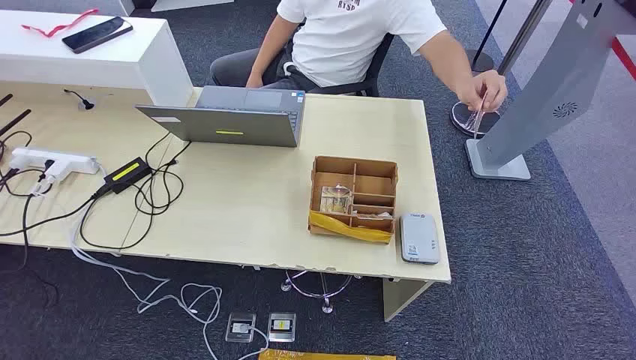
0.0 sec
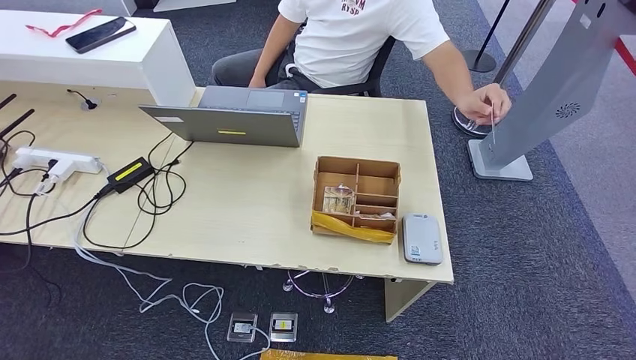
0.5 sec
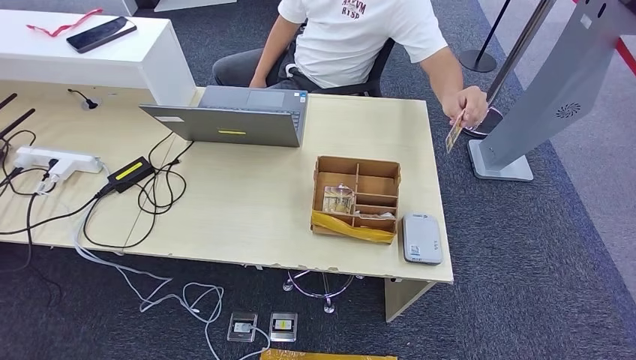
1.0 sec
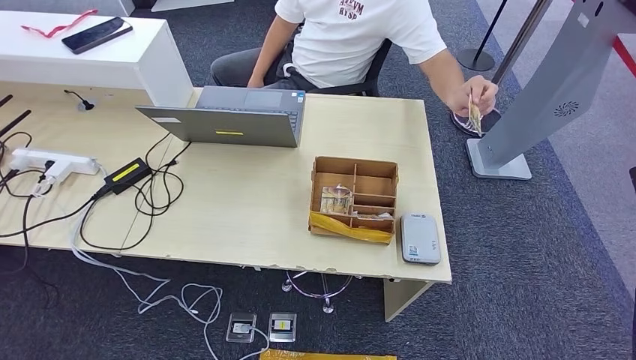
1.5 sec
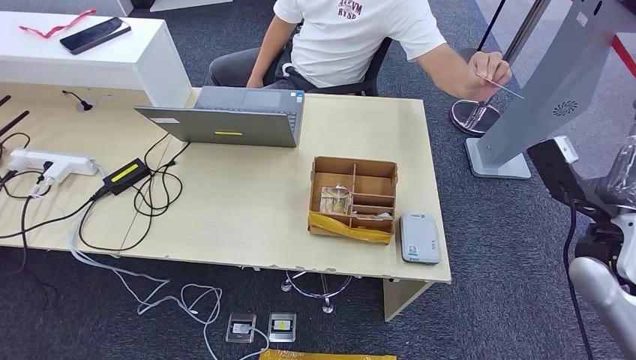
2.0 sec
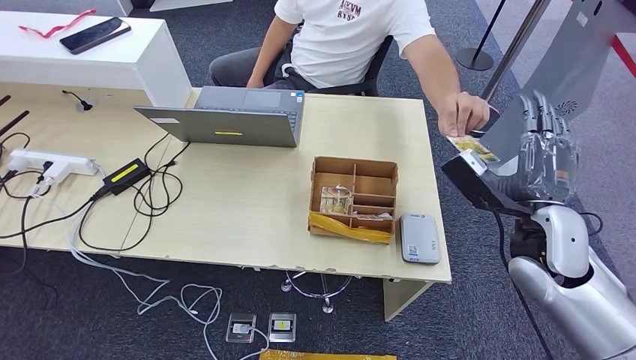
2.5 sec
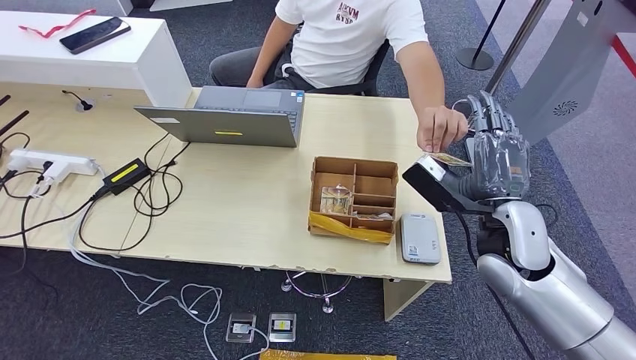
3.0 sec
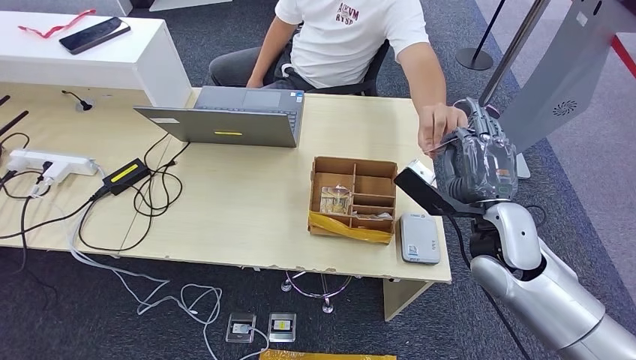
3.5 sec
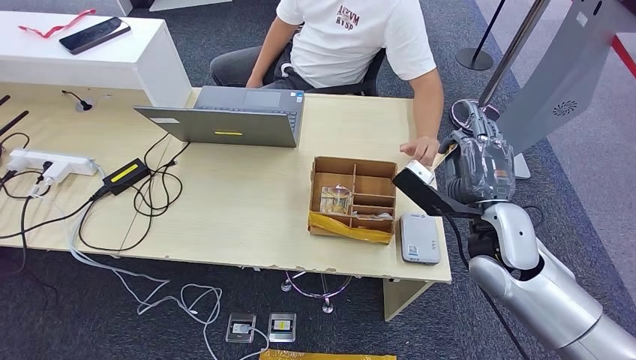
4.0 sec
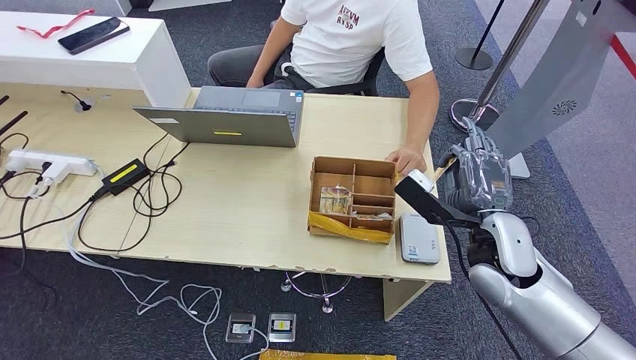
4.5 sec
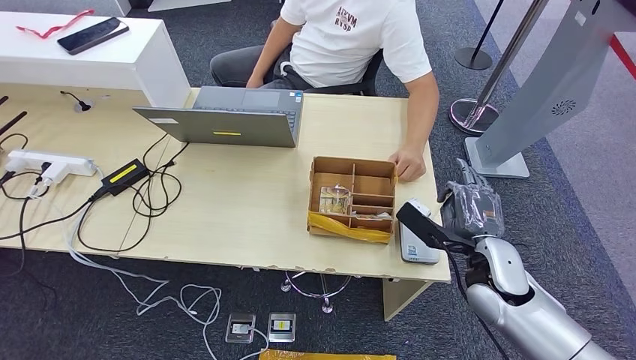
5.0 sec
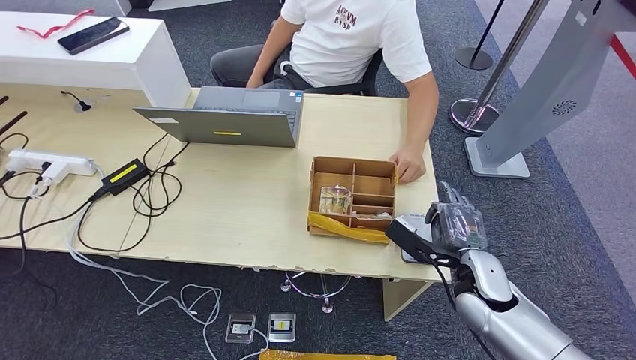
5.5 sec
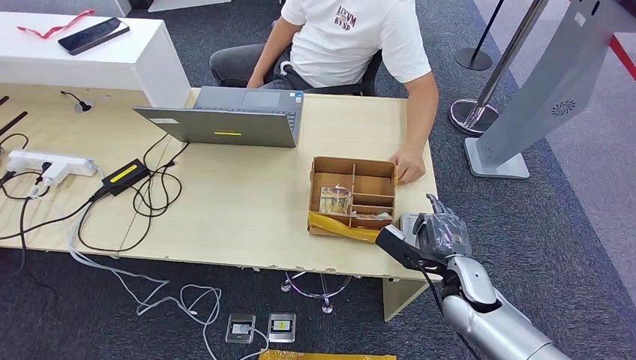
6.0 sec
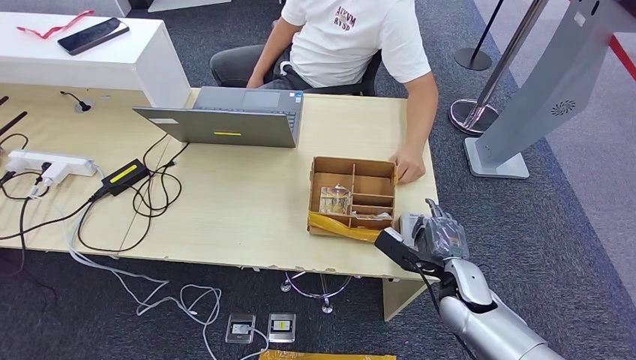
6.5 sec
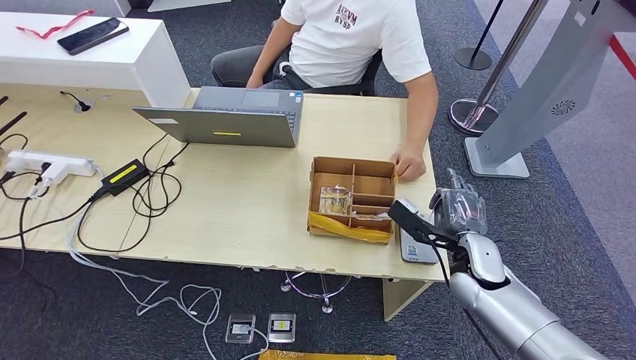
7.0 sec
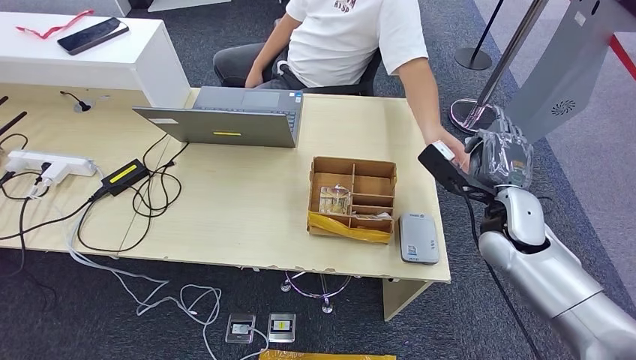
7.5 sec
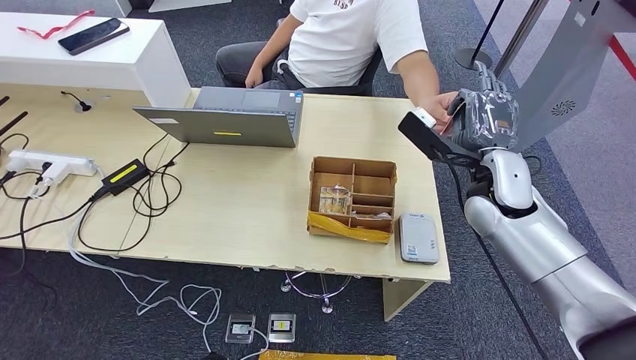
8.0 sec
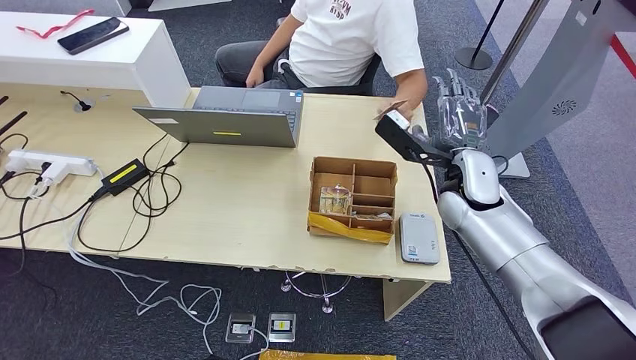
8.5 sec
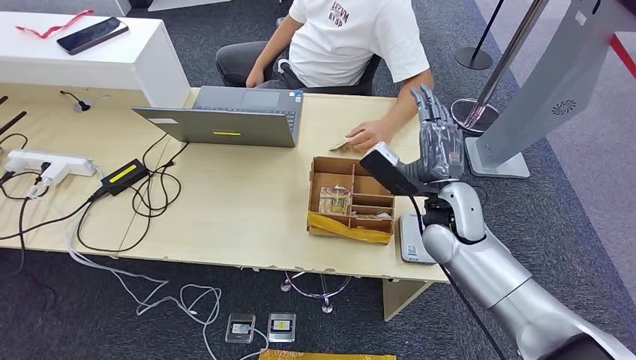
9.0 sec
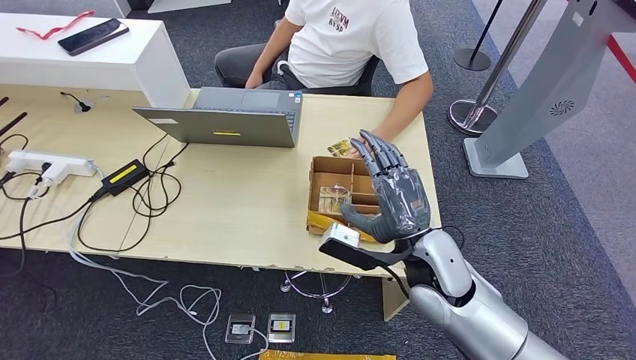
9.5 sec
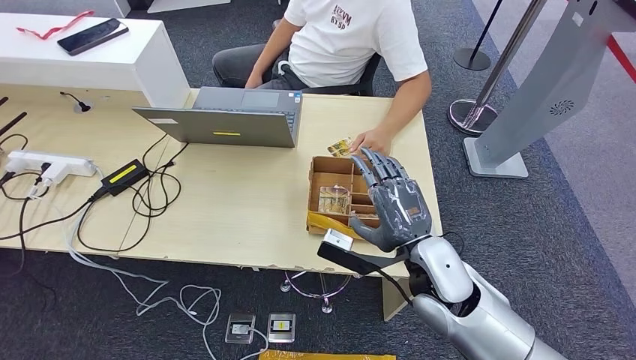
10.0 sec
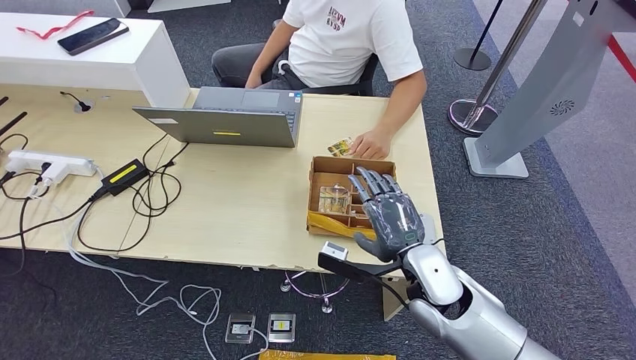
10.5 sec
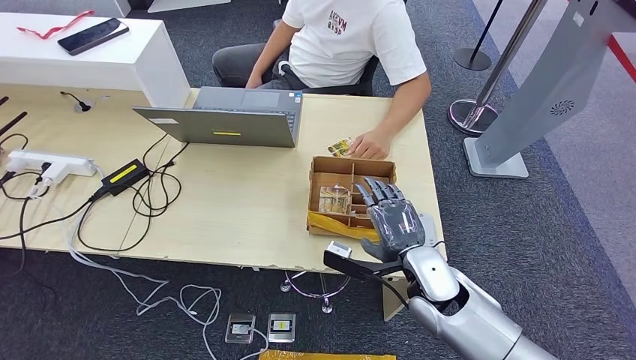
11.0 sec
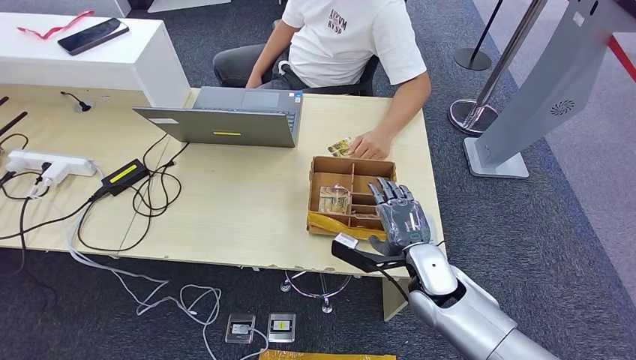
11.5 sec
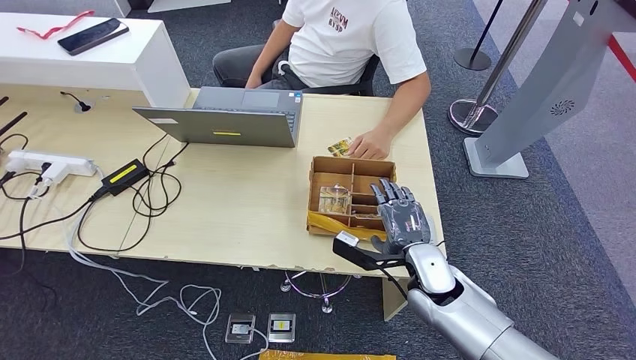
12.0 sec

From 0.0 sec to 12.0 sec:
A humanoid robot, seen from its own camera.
Step, from 0.0 sec to 4.0 sec: Take the ID card from the person's hand.
Step, from 4.5 sec to 6.0 sec: Place the ID card on the card reader.
Step, from 6.5 sec to 8.5 sec: Hand the ID card to the person.
From 2.0 sec to 4.0 sec: The right hand moves to the left, about 15 cm.
From 4.0 sec to 6.0 sec: The right hand moves downward, approximately 15 cm.
From 6.0 sec to 8.0 sec: The right hand heads upward and forward, covering some 20 cm.
From 10.0 sec to 12.0 sec: The right hand is displaced downward by some 10 cm.

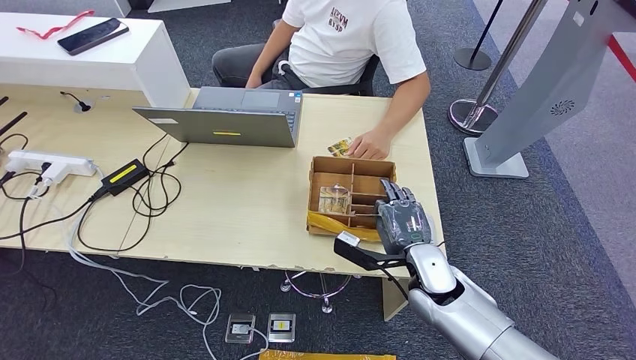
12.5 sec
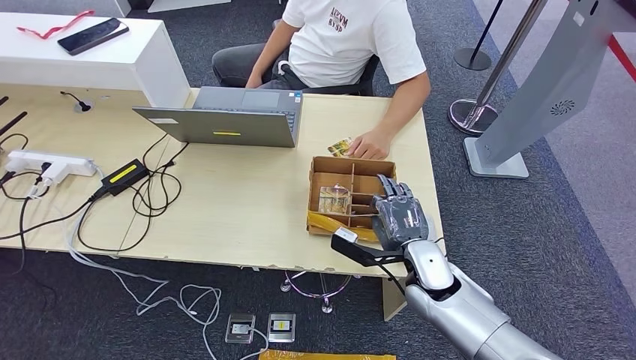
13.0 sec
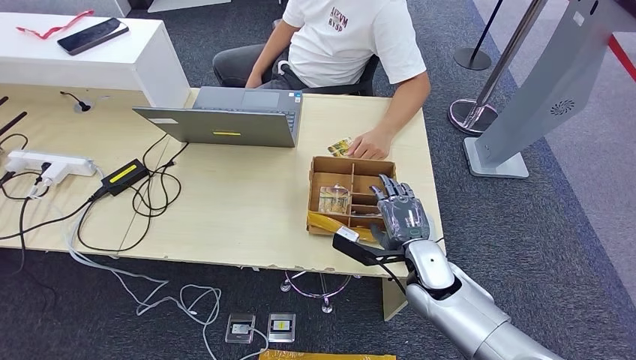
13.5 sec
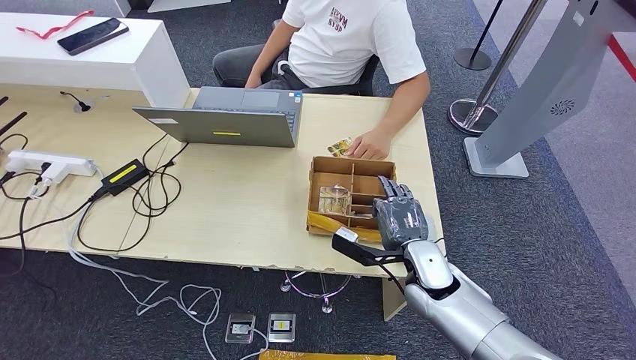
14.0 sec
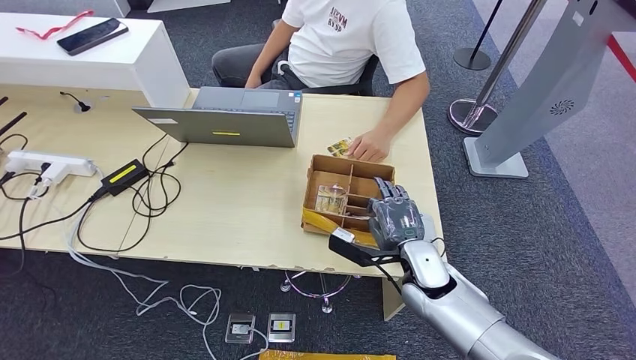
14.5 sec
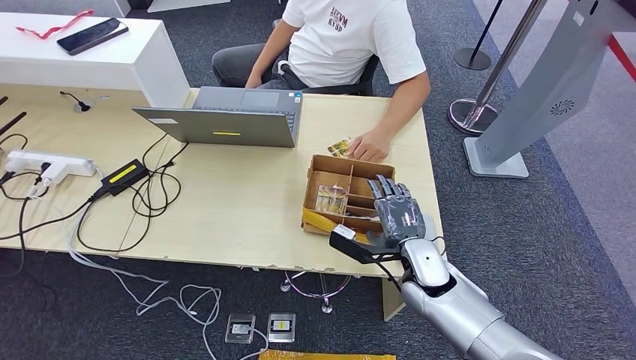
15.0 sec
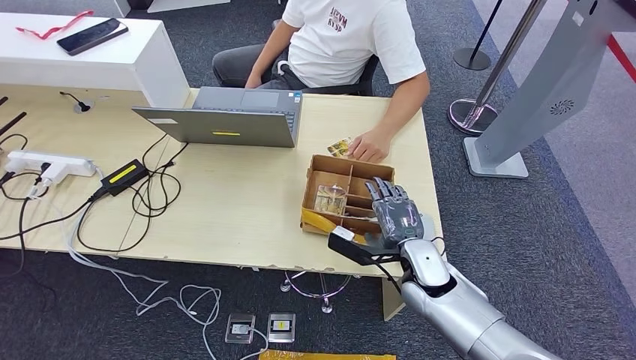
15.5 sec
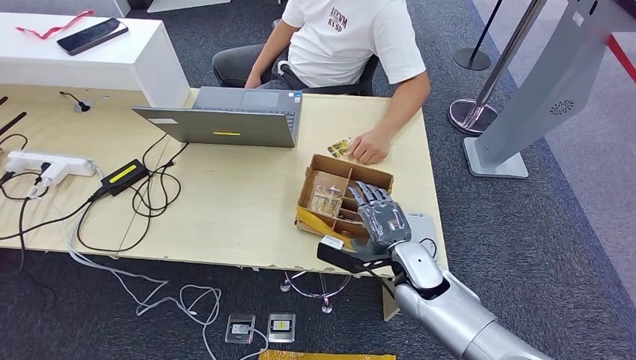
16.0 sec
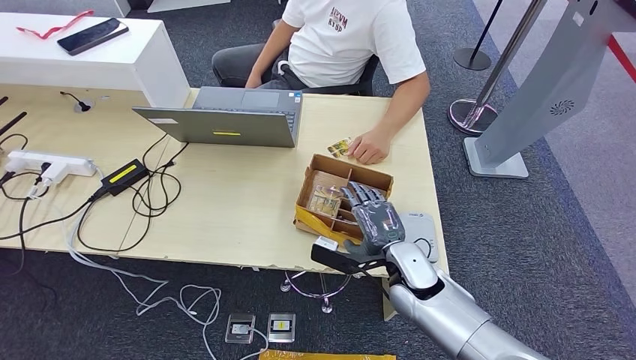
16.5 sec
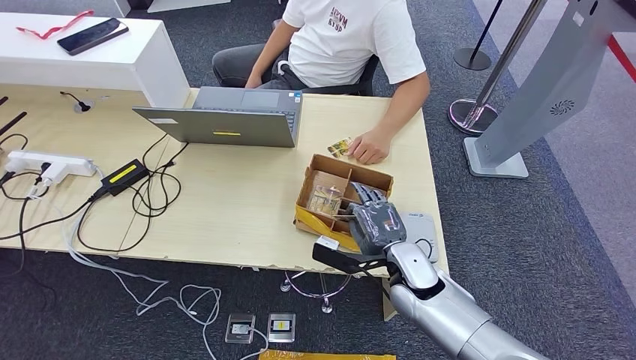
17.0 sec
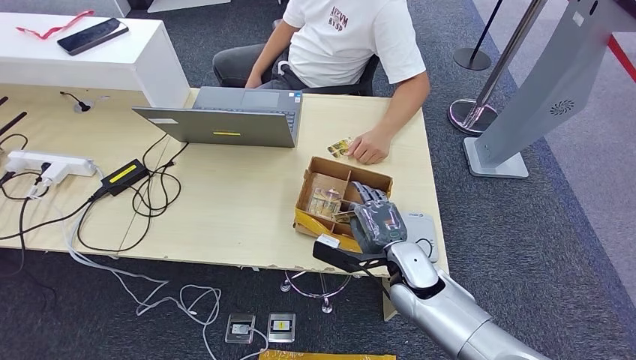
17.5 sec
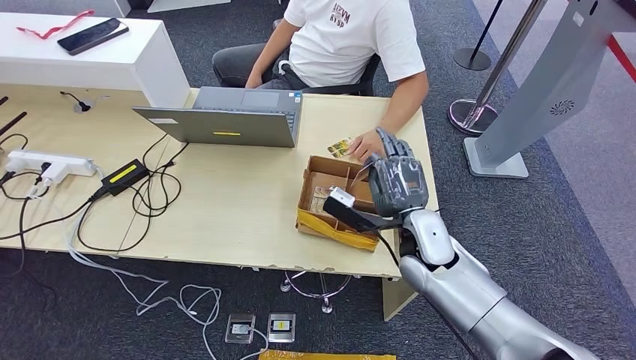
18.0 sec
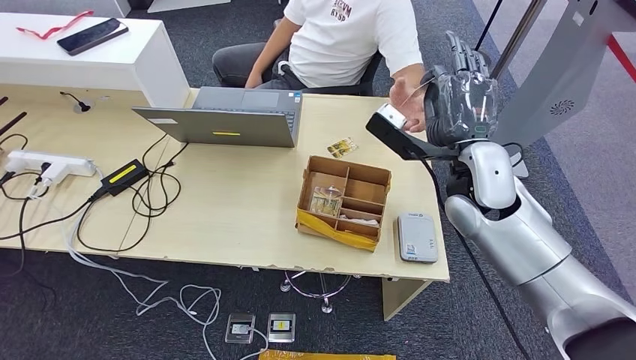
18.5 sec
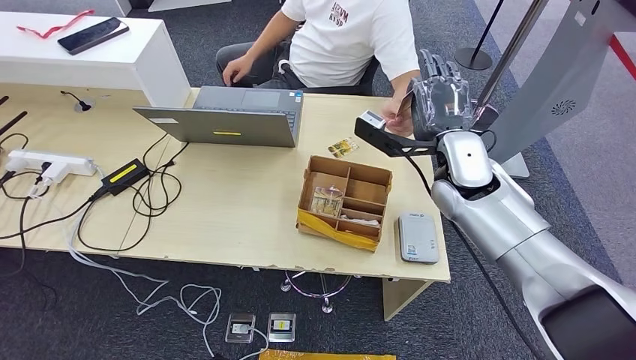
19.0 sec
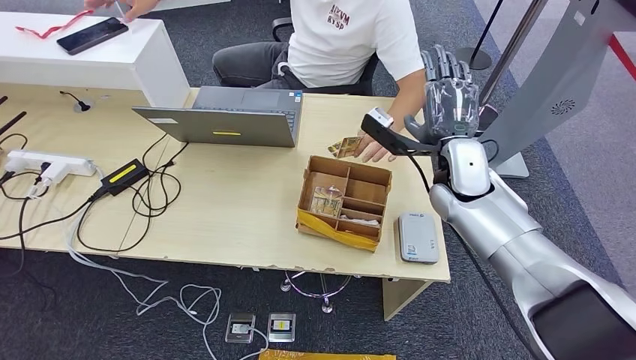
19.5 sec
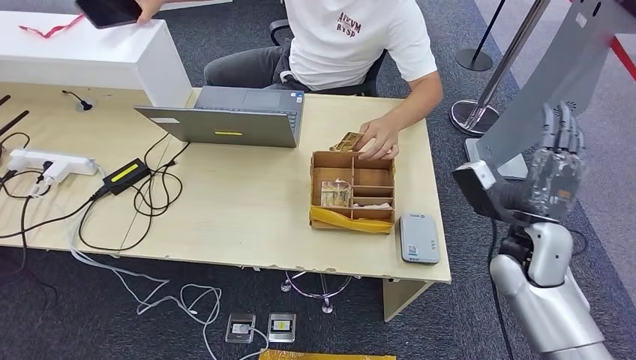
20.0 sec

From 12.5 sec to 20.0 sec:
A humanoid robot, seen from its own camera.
Step, from 12.5 sec to 18.0 sec: Pick up the room key from the key card box.
Step, from 18.5 sec to 20.0 sec: Hand the room key to the person.
From 12.5 sec to 14.5 sec: Neither hand changes place.
From 14.5 sec to 16.5 sec: There are only small adjustments of the hands.
From 16.5 sec to 18.0 sec: The right hand heads upward, covering roughly 5 cm.
